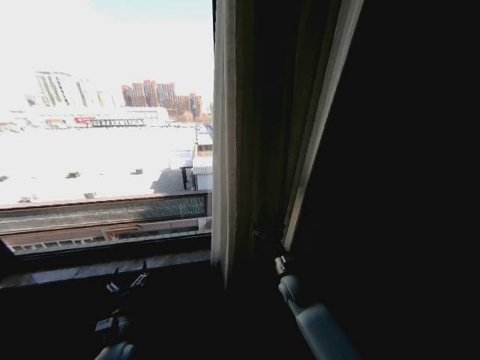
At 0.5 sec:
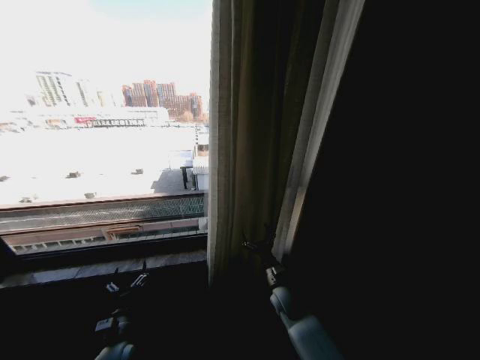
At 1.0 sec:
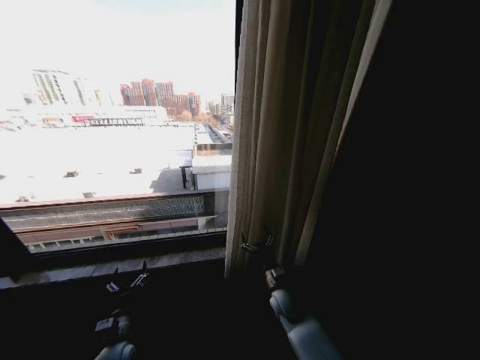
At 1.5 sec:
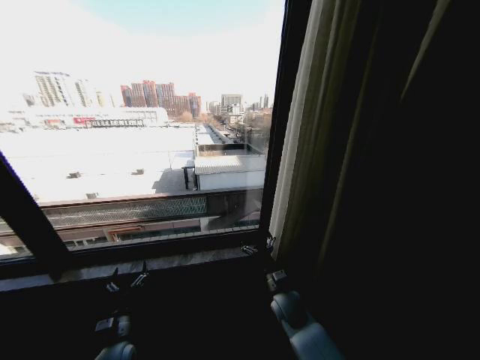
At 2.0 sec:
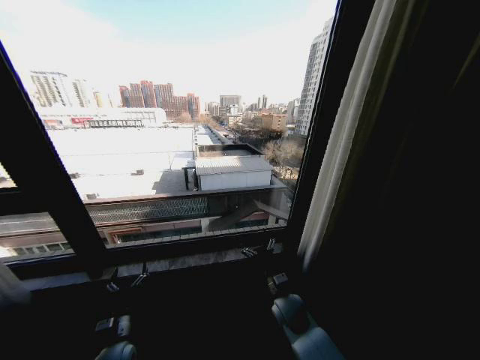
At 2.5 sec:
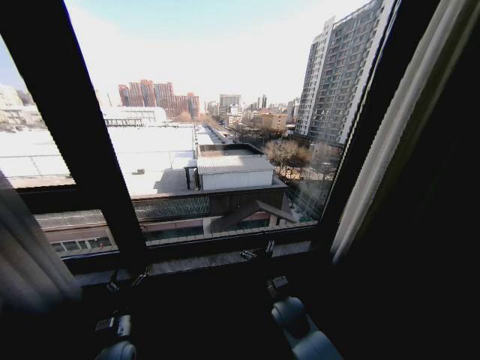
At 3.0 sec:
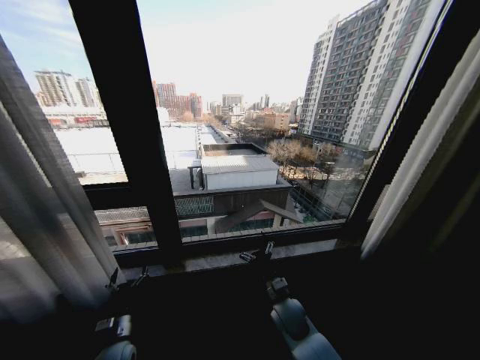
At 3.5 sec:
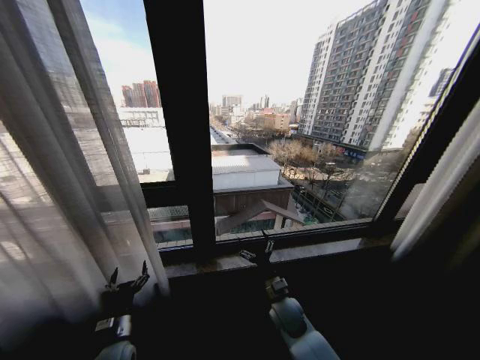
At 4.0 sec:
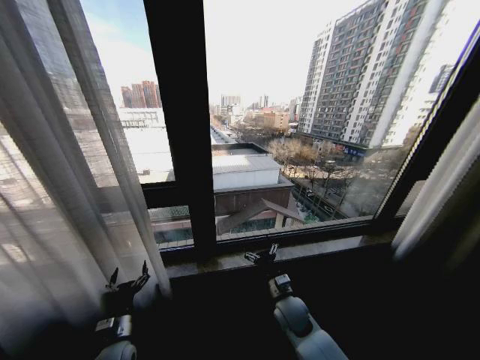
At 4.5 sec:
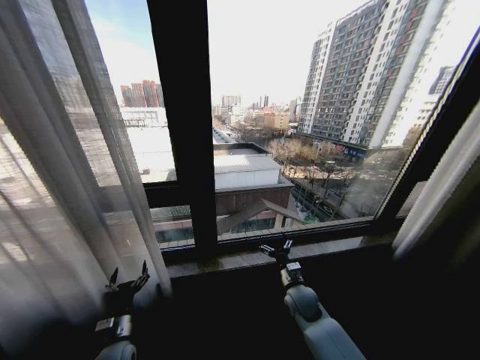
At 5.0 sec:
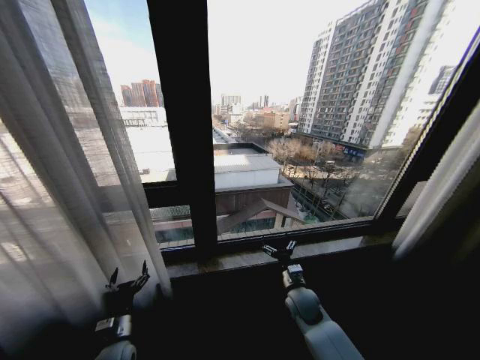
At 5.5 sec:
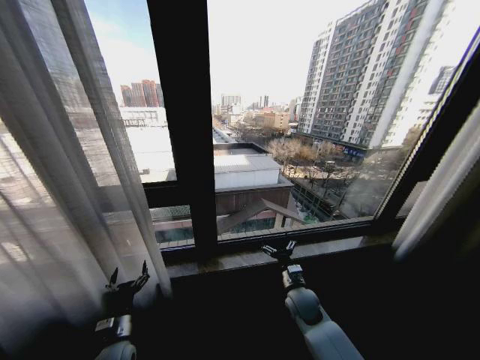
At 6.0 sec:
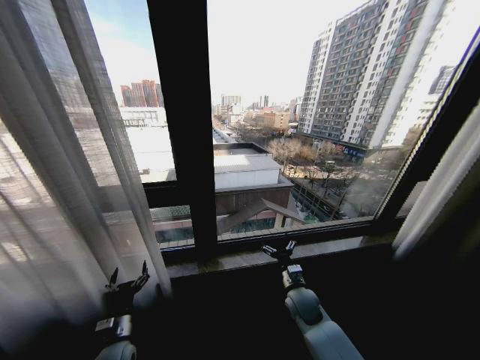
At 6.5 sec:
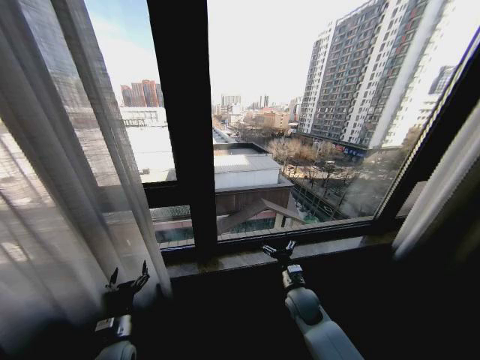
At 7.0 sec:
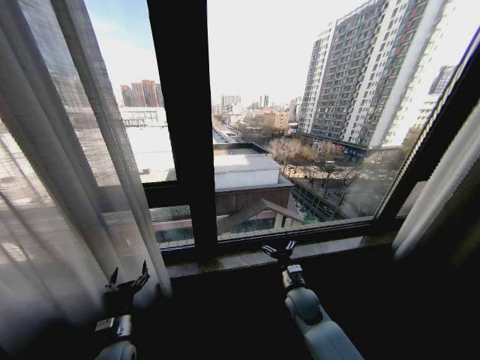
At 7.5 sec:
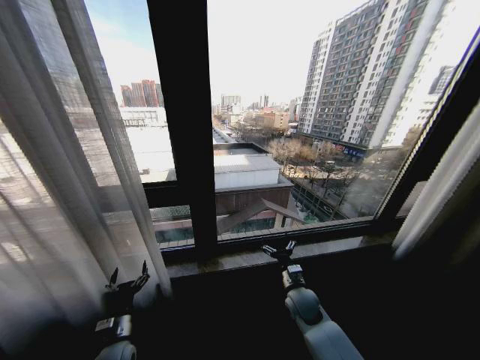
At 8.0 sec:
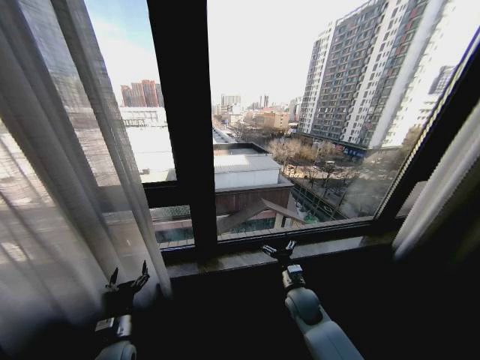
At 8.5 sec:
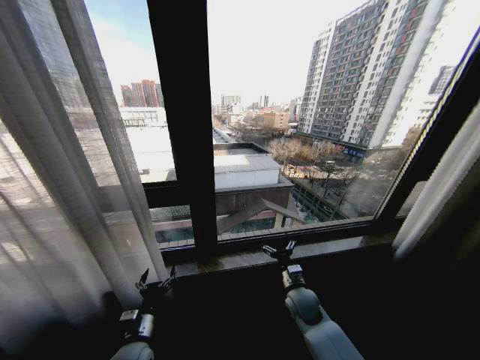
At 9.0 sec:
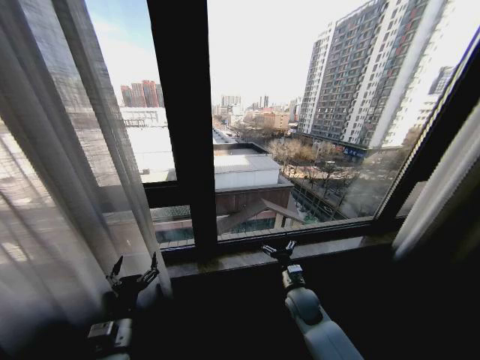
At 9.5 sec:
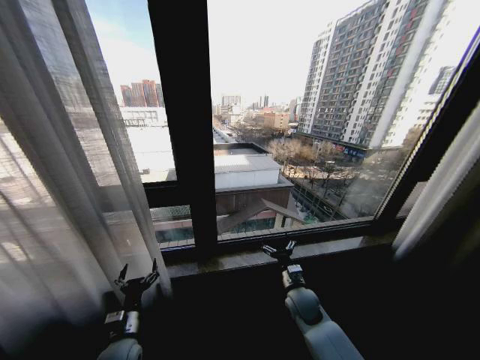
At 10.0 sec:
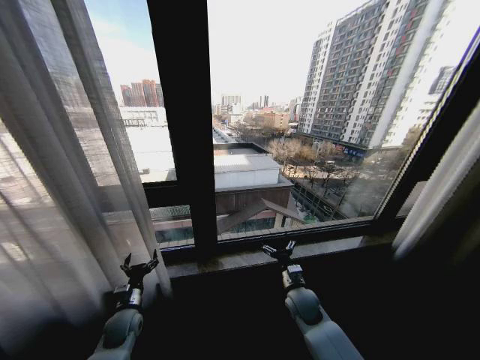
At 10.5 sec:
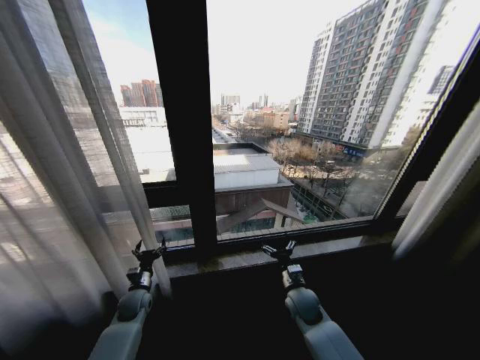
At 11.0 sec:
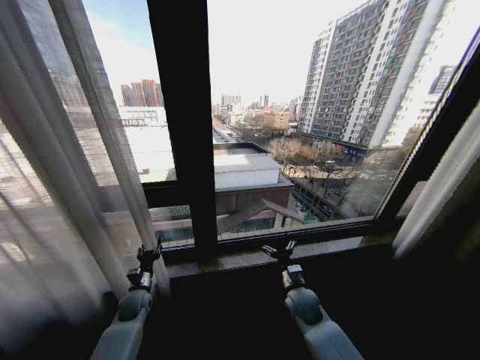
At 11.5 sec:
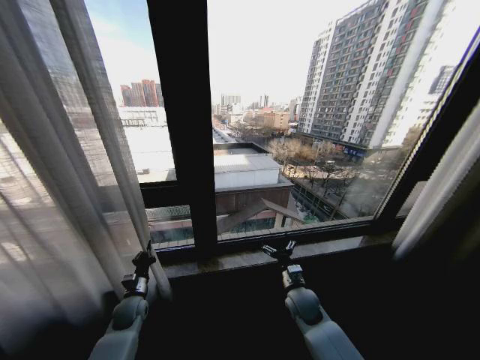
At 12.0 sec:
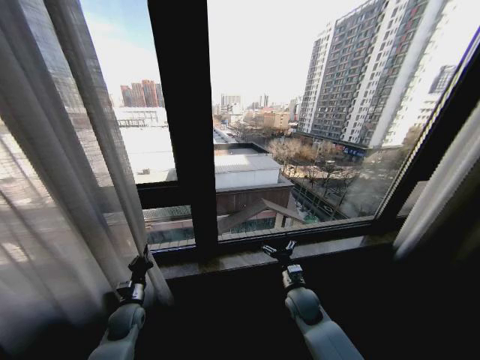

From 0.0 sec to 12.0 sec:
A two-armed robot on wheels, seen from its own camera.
Task of the whole recording: Open the curtains by pulling them apart, changing their state from closed to fully open.
From 0.0 sec to 2.0 sec: The right gripper moves backward, approximately 5 cm.
From 4.0 sec to 6.0 sec: The right gripper moves approximately 5 cm.
From 6.0 sec to 8.0 sec: Both grippers stay put.
From 8.0 sec to 10.0 sec: The left gripper shifts roughly 10 cm forward.
From 10.0 sec to 12.0 sec: The left gripper closes.

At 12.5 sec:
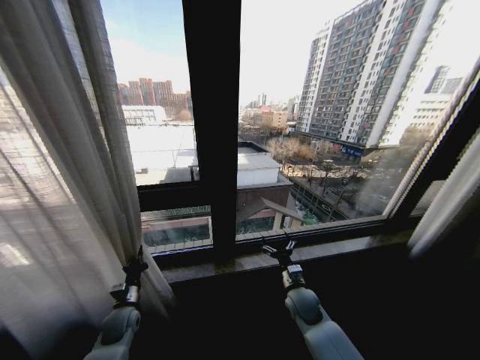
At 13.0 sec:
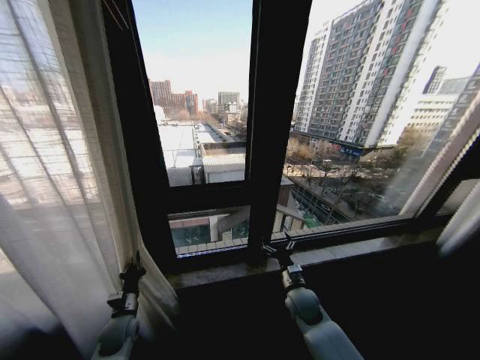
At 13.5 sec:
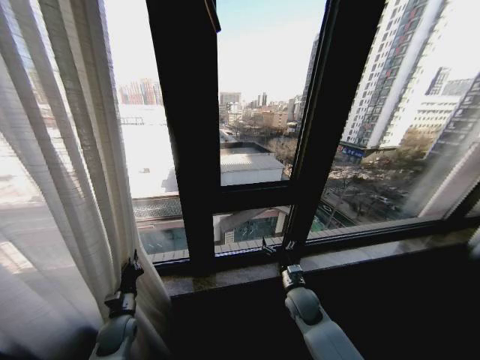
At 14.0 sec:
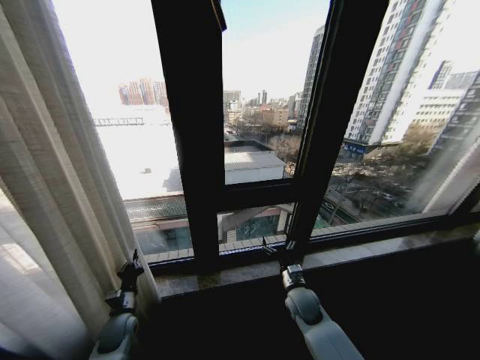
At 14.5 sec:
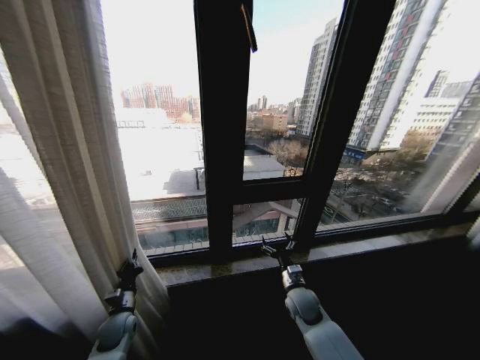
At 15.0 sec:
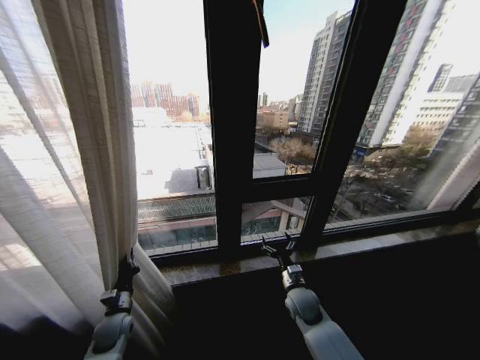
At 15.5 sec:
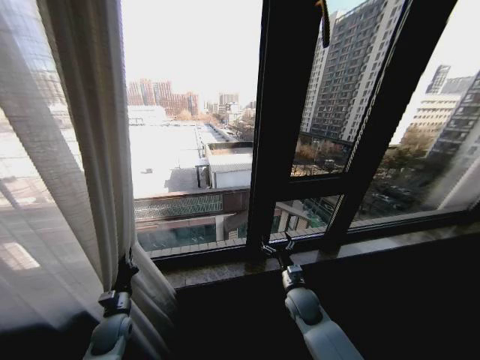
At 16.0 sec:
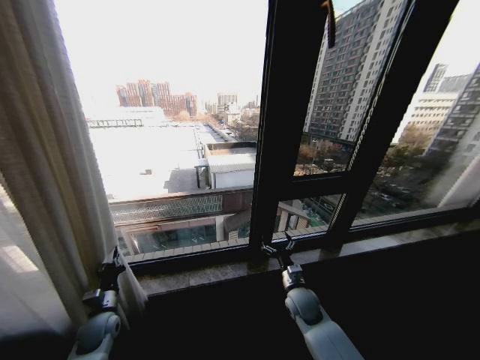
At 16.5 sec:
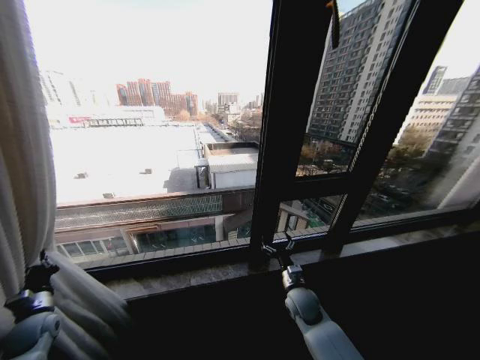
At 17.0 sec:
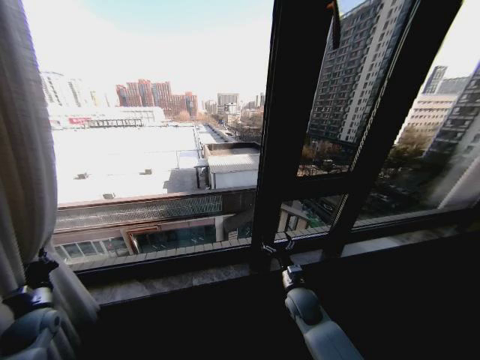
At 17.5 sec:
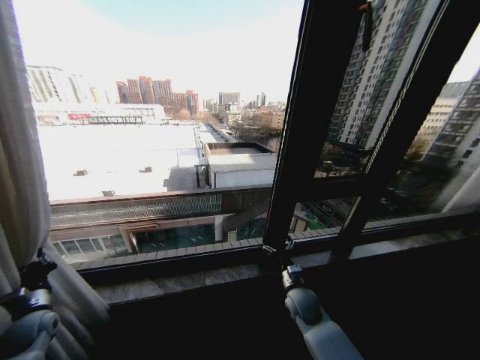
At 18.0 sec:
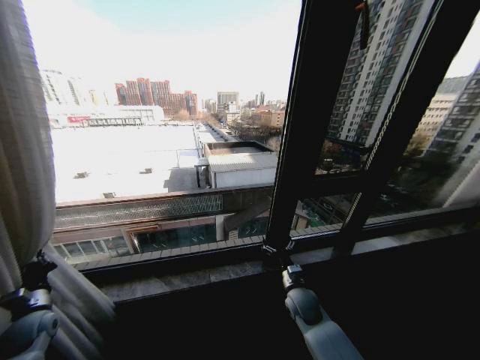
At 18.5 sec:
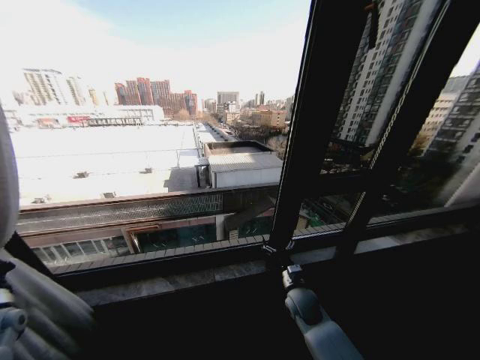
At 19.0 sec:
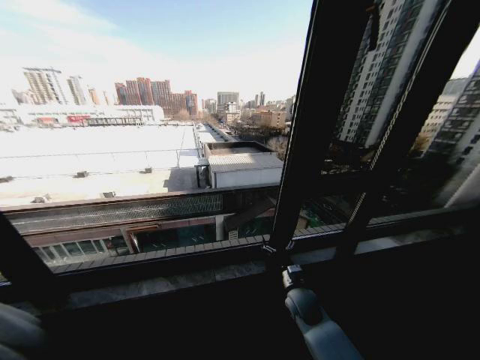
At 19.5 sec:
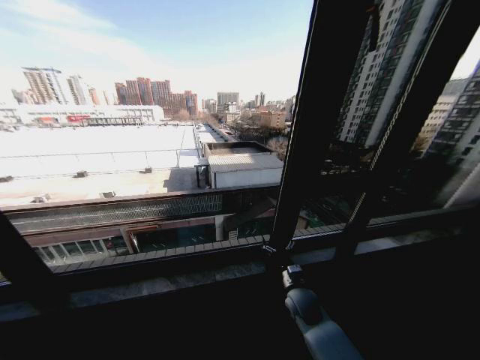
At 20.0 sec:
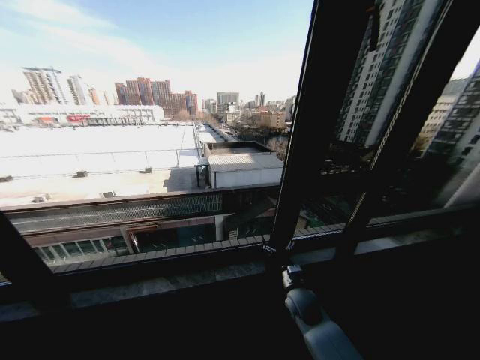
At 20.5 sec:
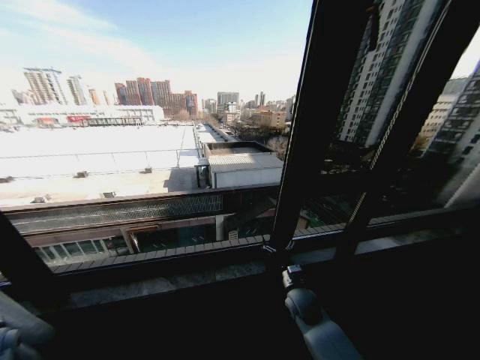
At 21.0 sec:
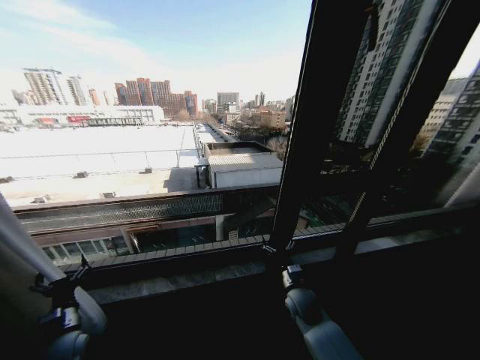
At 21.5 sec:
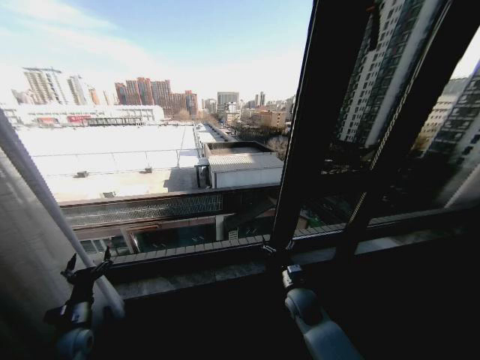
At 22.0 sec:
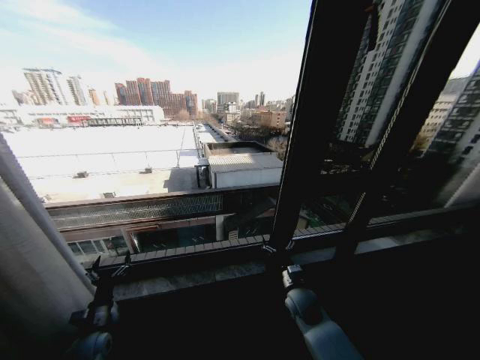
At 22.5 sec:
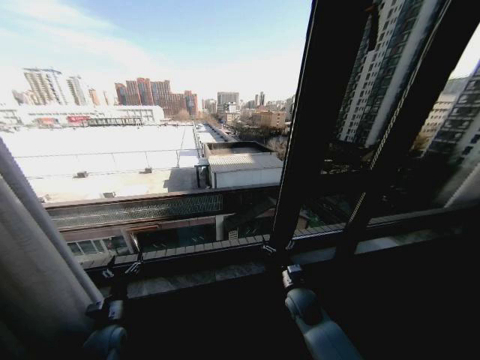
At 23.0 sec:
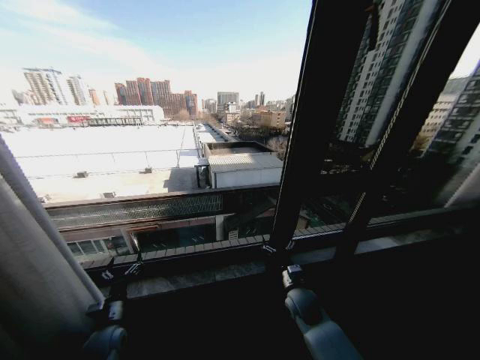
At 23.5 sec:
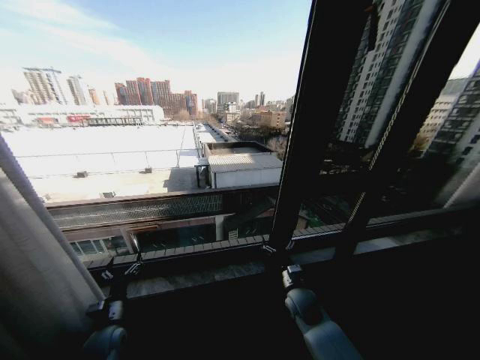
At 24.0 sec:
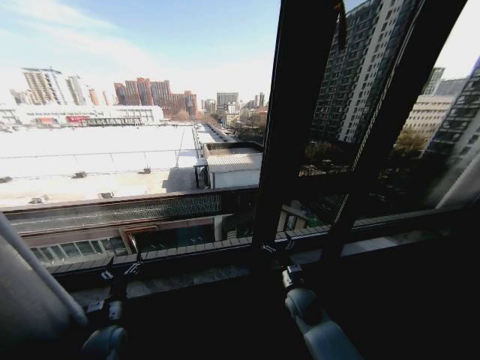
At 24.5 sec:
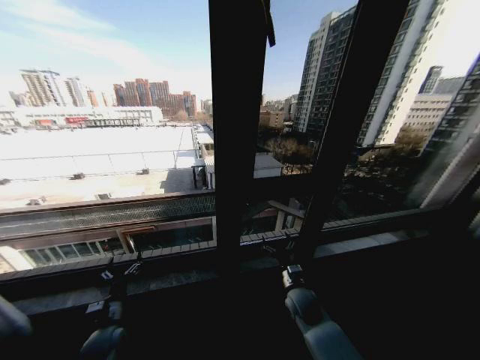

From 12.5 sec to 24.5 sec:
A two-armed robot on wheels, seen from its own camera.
Task of the whole recording: Open the curtains by pulling them apart, changing their state from closed to fully open.
From 14.5 sec to 16.5 sec: The left gripper is displaced to the left by approximately 15 cm.
From 16.5 sec to 18.5 sec: The left gripper moves to the left and upward, roughly 10 cm.
From 18.5 sec to 20.5 sec: The left gripper moves roughly 15 cm to the left and comes back, and opens its fingers.
From 20.5 sec to 22.5 sec: The left gripper is displaced to the right by approximately 25 cm, and opens up.
